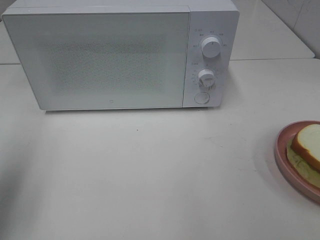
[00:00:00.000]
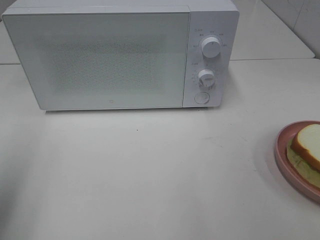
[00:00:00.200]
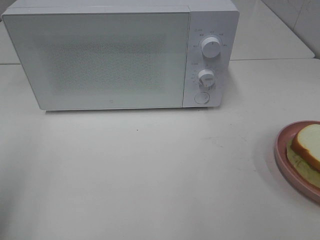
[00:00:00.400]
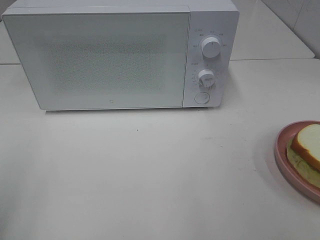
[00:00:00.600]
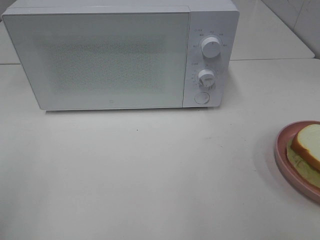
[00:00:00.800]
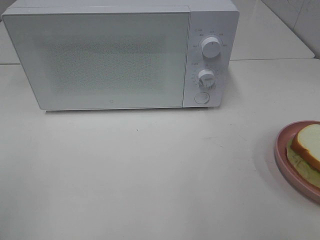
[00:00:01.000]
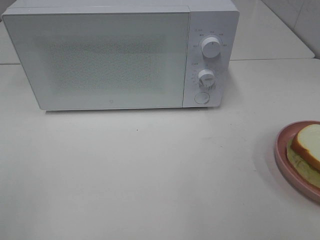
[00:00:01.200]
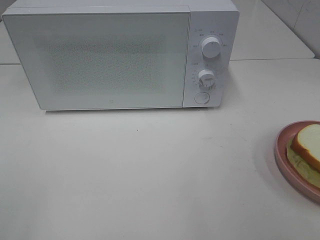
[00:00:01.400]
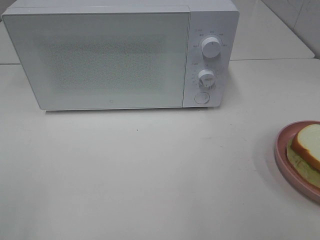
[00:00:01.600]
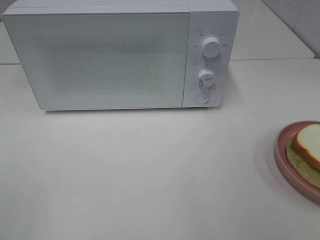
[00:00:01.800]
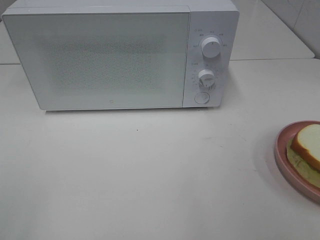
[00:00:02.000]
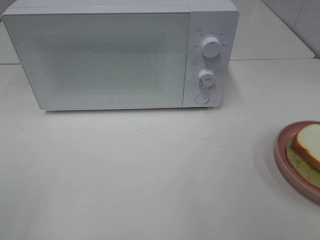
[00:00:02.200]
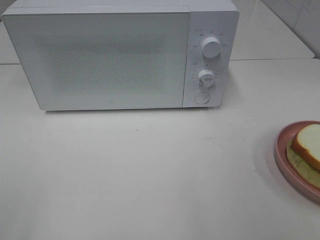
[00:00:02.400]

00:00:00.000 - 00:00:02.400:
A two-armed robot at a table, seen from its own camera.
Task of the whole recording: Heat Sandwich.
00:00:00.000 - 00:00:01.200: The left gripper goes approximately 15 cm backward.
00:00:01.200 - 00:00:02.400: Neither gripper changes place.
